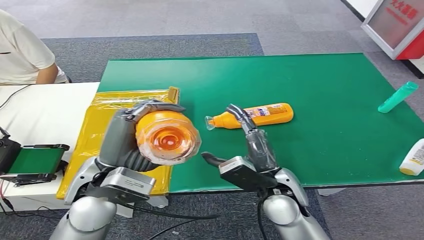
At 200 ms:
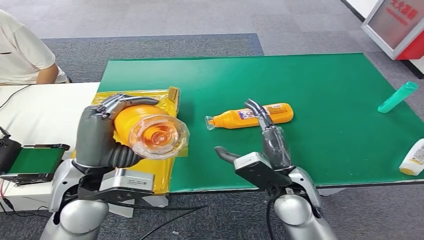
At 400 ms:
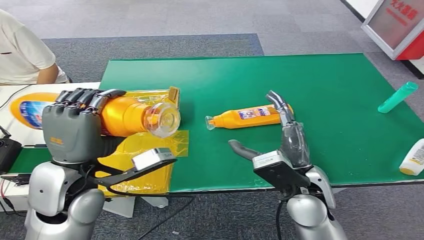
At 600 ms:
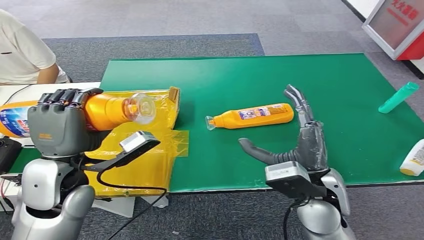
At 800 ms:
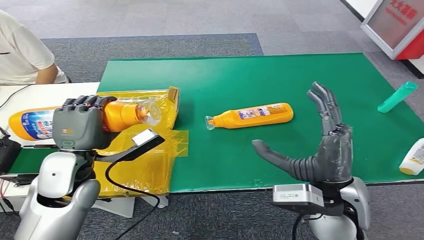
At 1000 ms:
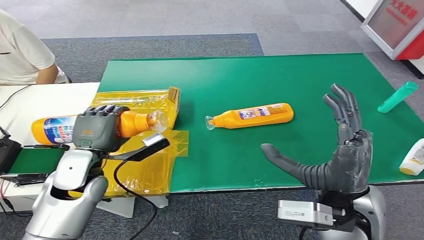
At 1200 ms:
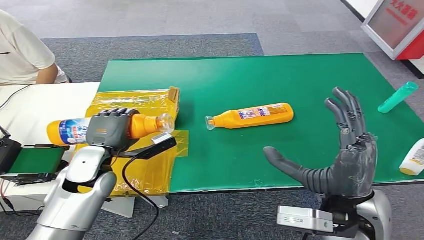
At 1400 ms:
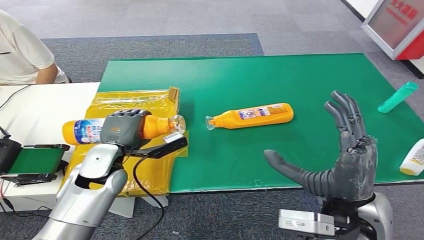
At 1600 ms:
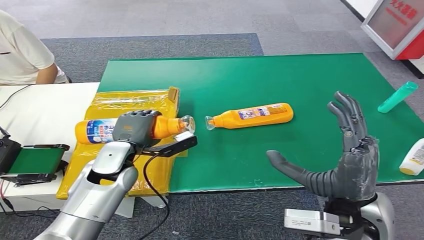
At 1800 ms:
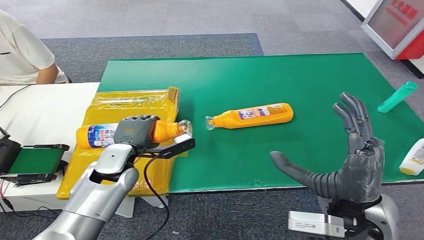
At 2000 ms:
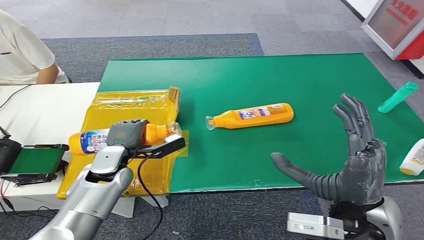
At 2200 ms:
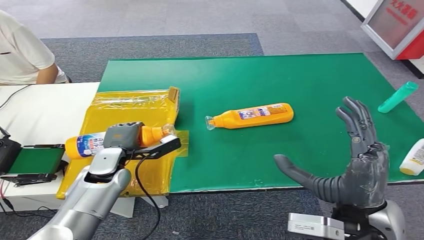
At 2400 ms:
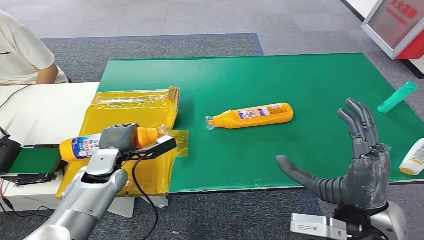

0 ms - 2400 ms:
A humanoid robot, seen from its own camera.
Step, 200 ms - 2400 ms: Turn the bottle to the front side.
1200 ms - 2400 ms: The left hand goes approximately 5 cm downward.
